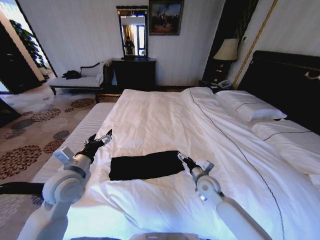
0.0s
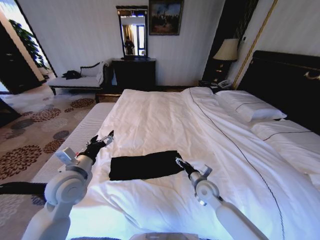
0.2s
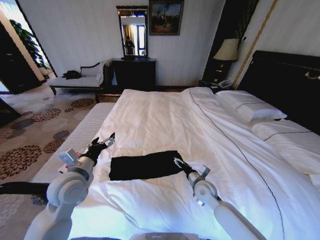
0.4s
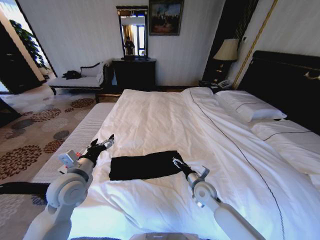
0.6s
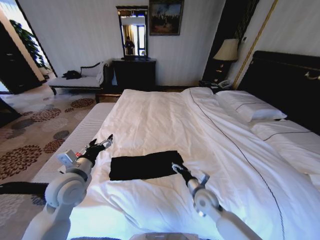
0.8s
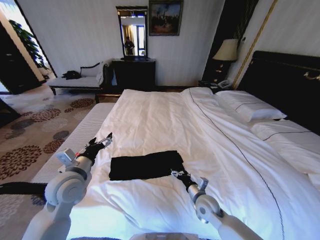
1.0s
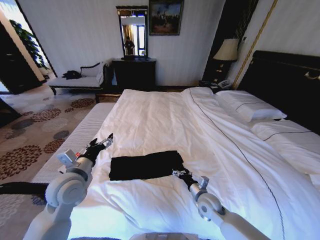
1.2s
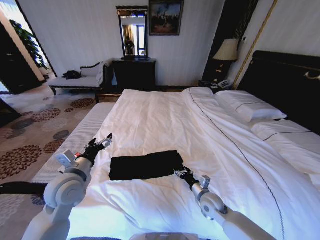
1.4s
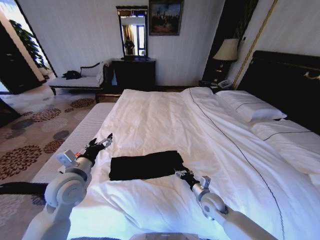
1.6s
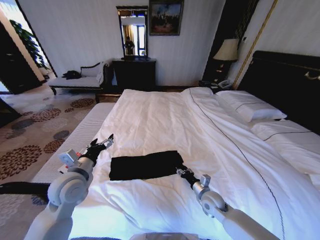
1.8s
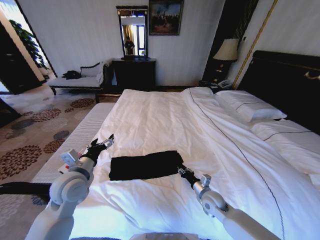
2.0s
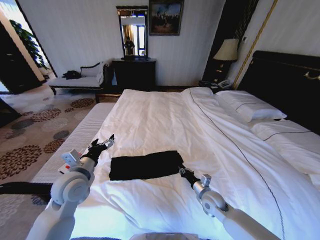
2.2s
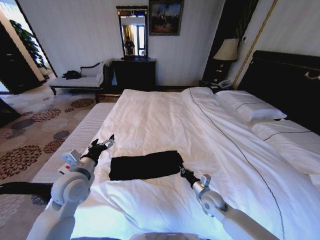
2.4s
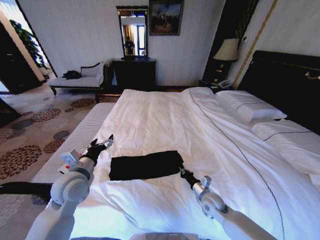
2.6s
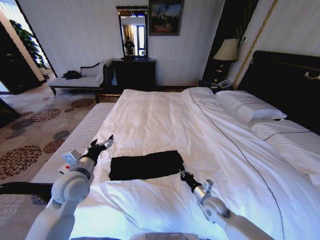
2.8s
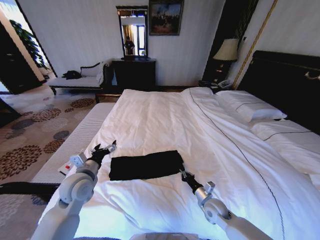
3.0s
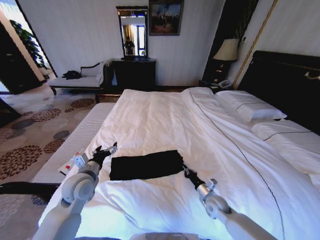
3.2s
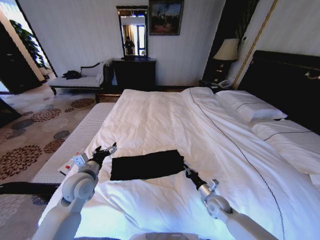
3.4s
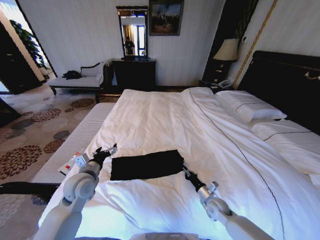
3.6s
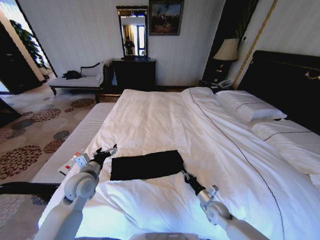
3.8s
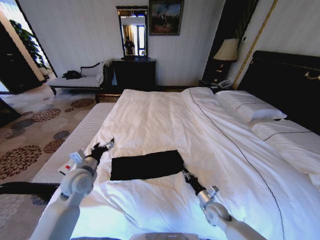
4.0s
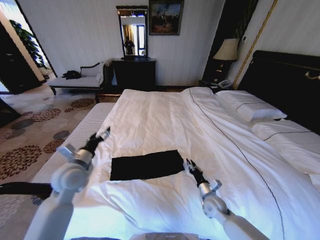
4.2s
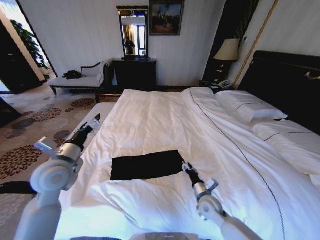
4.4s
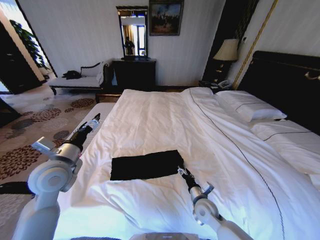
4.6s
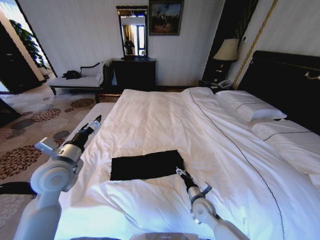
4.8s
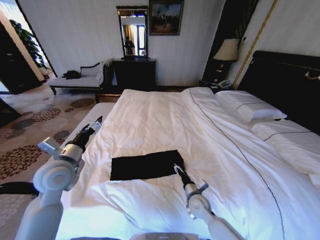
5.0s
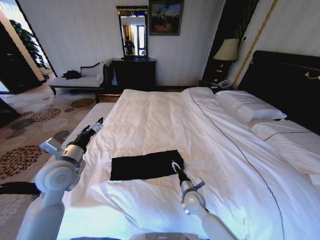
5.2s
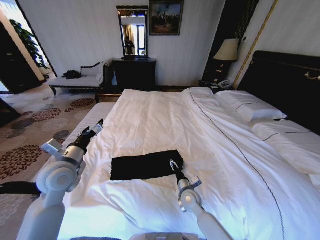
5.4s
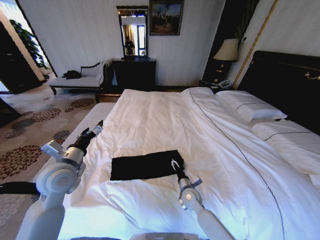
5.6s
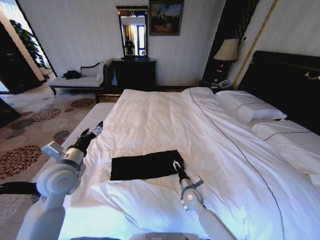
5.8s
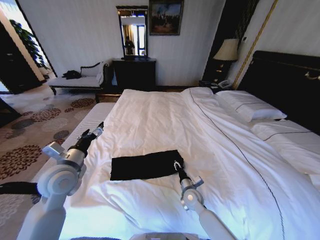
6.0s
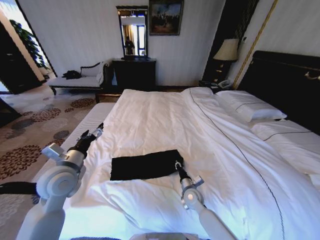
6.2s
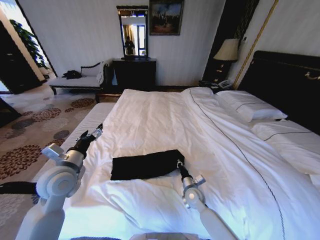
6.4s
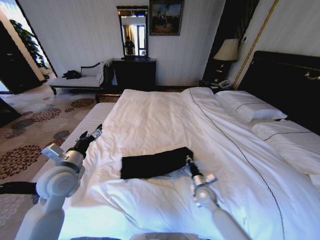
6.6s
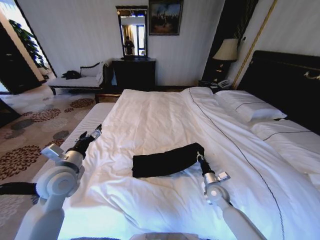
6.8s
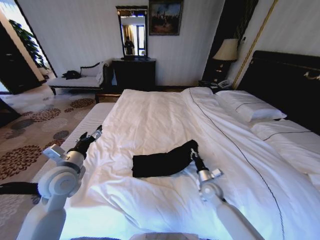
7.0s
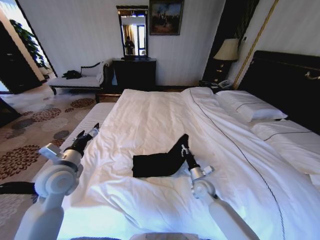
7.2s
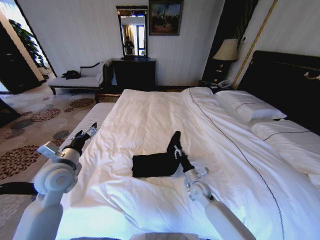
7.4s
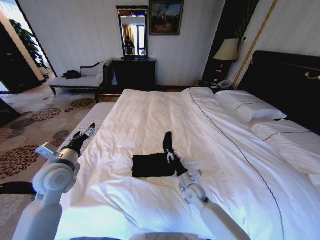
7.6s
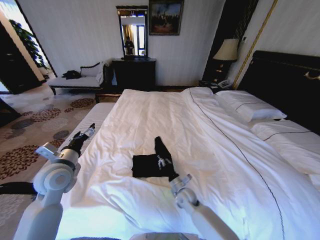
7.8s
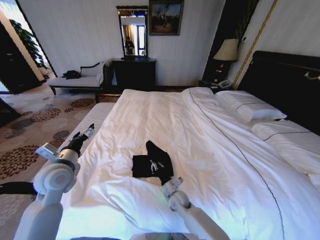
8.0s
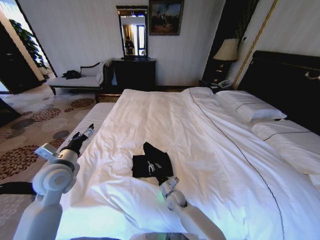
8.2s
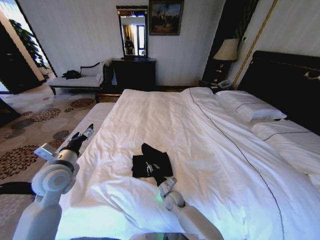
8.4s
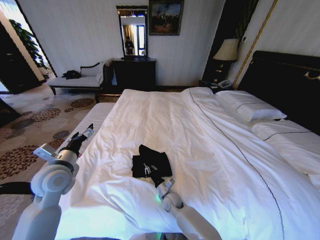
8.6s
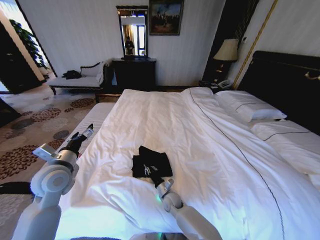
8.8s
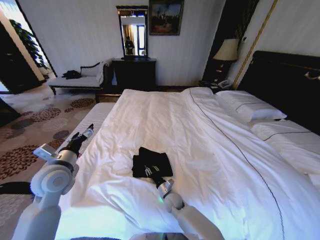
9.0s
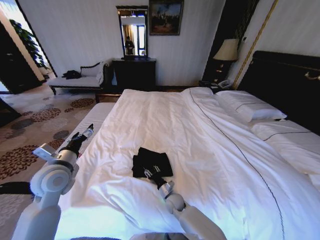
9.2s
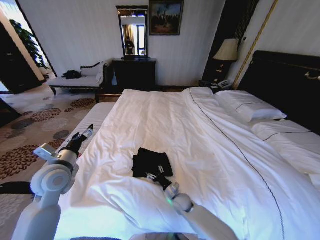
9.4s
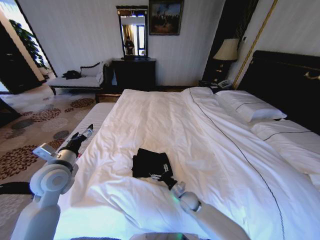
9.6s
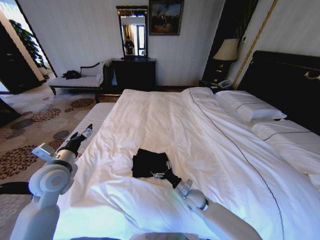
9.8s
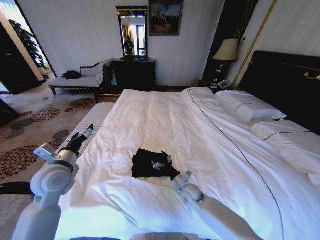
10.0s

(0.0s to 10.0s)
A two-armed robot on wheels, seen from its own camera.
Task of the whole recording: Fold the clothes on the bed.
0.0s - 1.4s: The right gripper goes about 10 cm downward and backward.
1.4s - 2.8s: The right gripper closes up.
2.8s - 4.2s: The right gripper opens up.
4.2s - 5.8s: The right gripper travels to the left by approximately 10 cm, and opens.
5.8s - 7.2s: The right gripper heads to the right, covering some 5 cm, and closes its fingers.
7.2s - 8.6s: The right gripper moves to the left and downward, about 20 cm.
8.6s - 10.0s: The right gripper travels to the right and upward by some 10 cm, and opens its fingers.

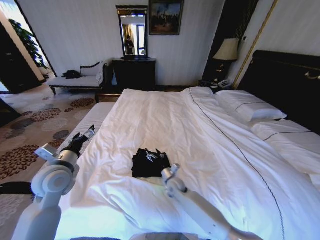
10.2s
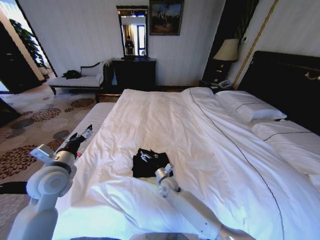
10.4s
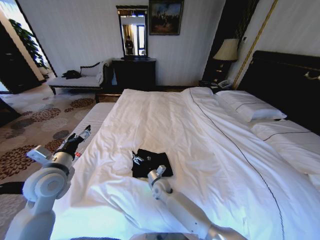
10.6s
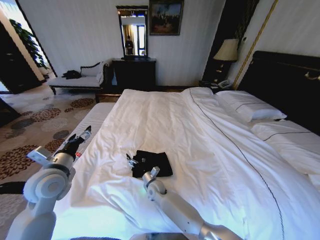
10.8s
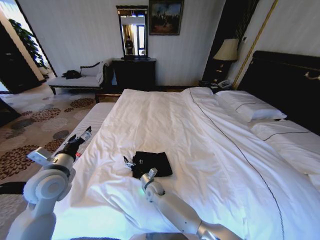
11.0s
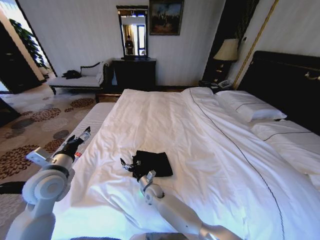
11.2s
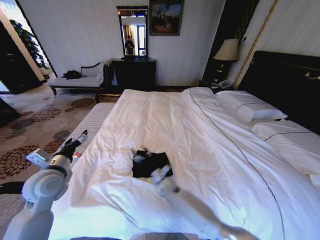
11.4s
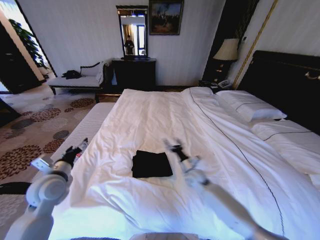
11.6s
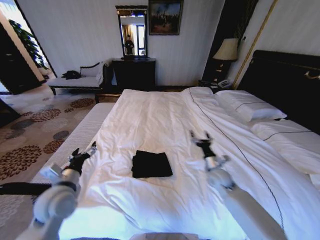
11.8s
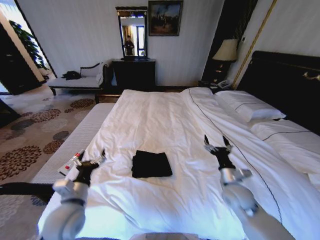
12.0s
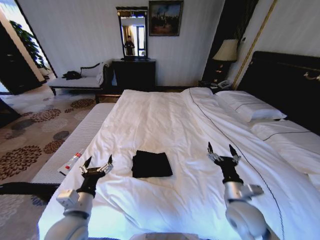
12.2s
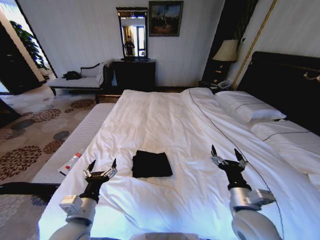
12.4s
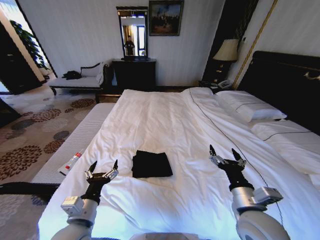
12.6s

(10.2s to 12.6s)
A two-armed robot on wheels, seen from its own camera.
Task of the whole recording: Fold the clothes on the bed.
10.2s - 11.4s: The right gripper reaches about 10 cm to the left, then returns.
11.4s - 12.6s: The right gripper shifts approximately 35 cm upward, backward and to the right; the left gripper goes about 20 cm backward and to the right.

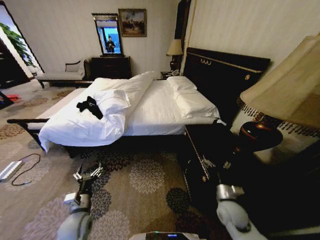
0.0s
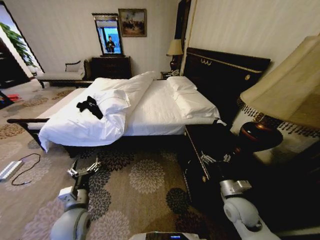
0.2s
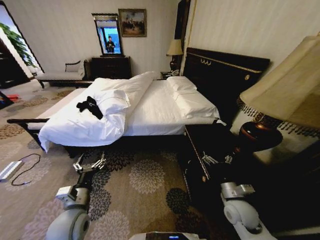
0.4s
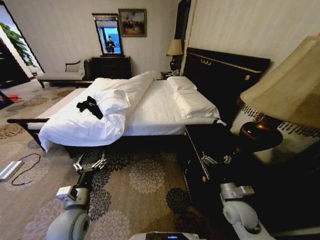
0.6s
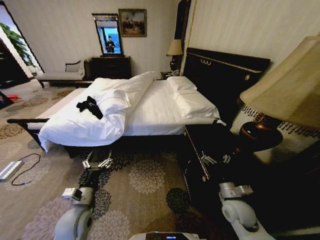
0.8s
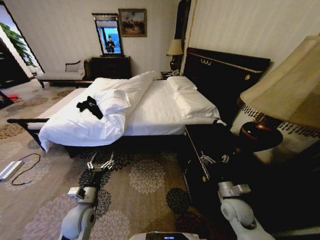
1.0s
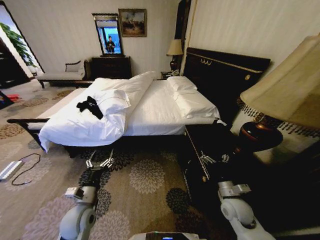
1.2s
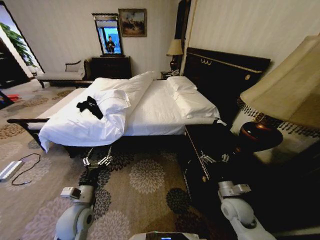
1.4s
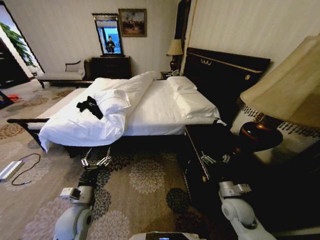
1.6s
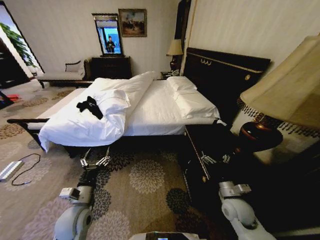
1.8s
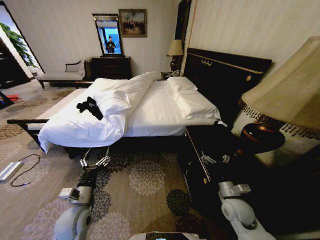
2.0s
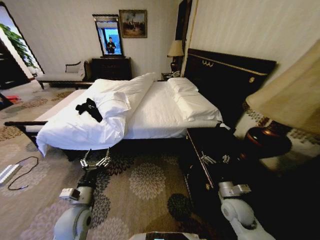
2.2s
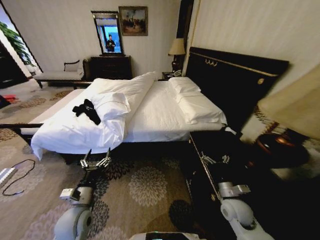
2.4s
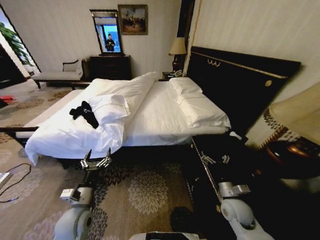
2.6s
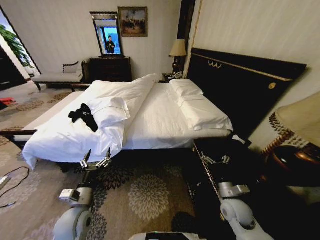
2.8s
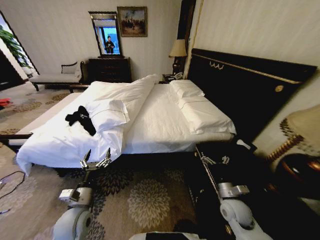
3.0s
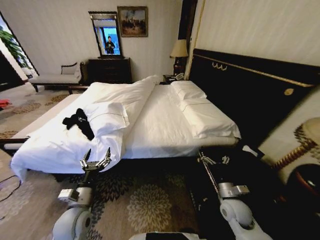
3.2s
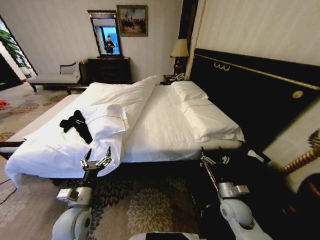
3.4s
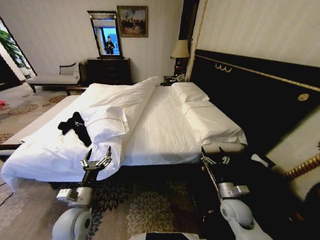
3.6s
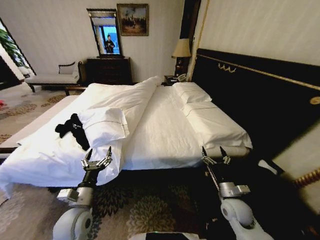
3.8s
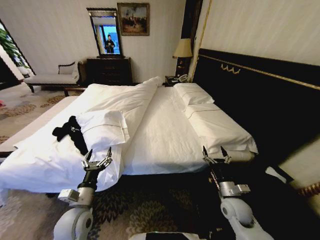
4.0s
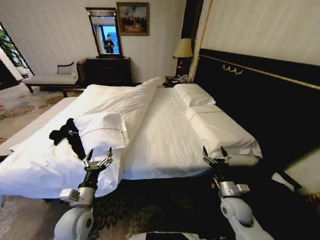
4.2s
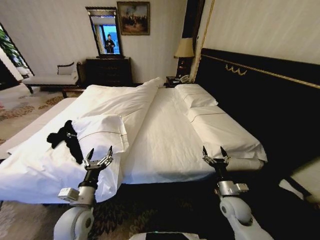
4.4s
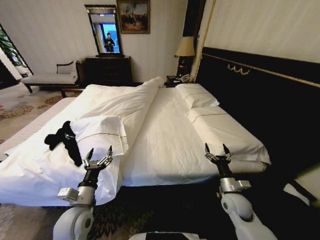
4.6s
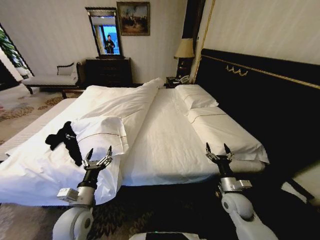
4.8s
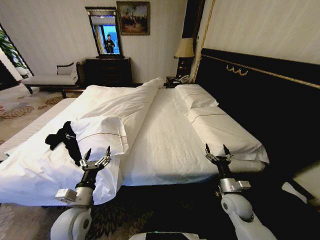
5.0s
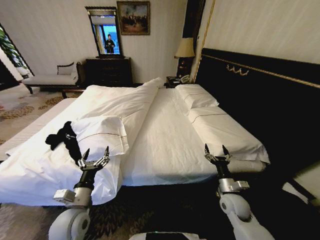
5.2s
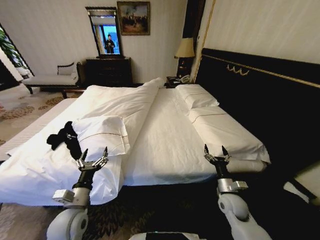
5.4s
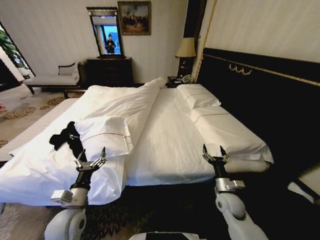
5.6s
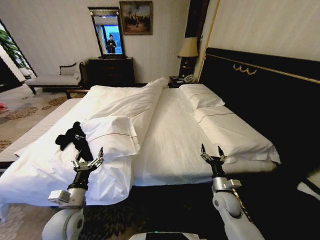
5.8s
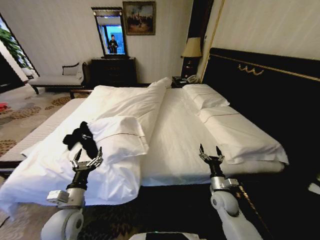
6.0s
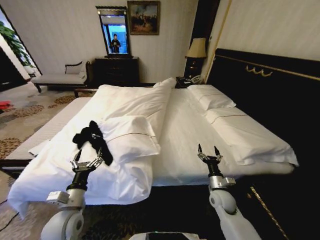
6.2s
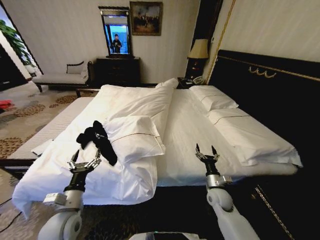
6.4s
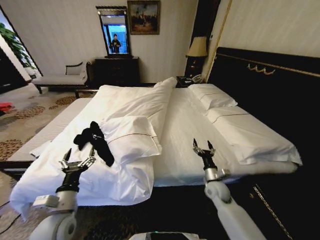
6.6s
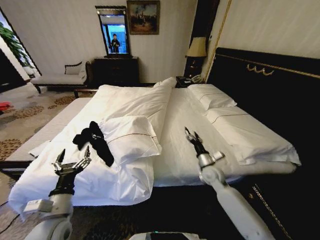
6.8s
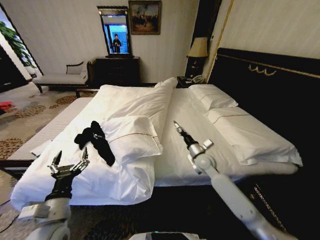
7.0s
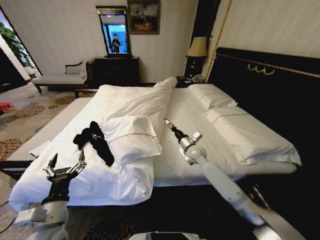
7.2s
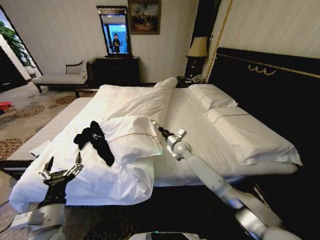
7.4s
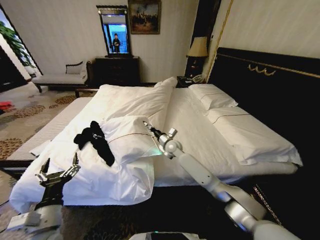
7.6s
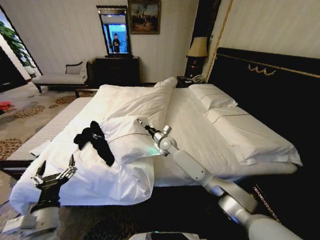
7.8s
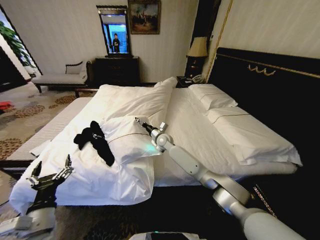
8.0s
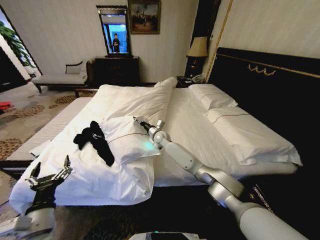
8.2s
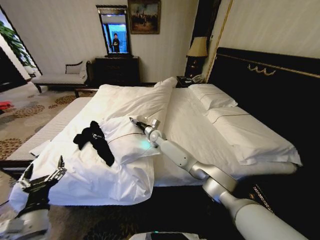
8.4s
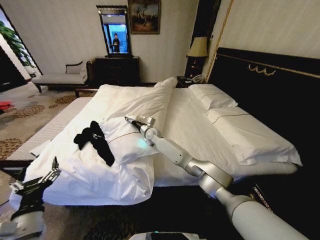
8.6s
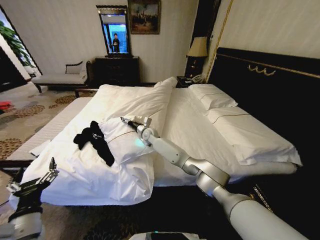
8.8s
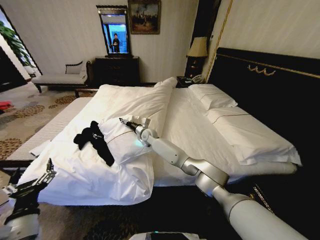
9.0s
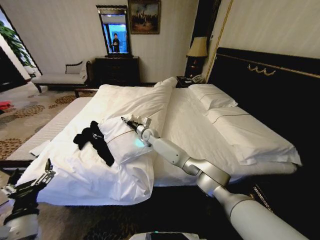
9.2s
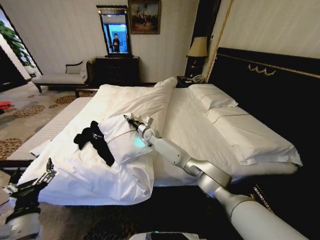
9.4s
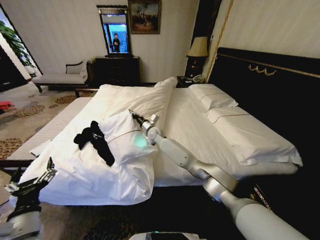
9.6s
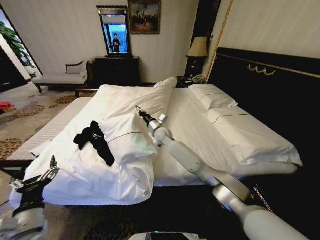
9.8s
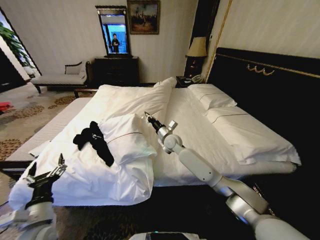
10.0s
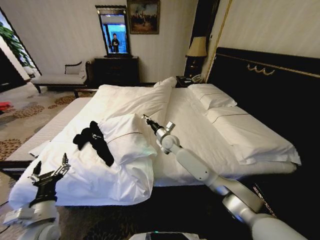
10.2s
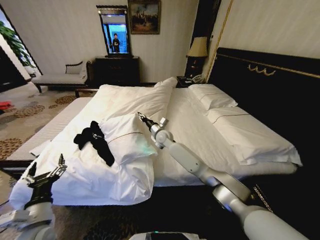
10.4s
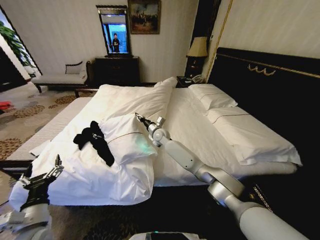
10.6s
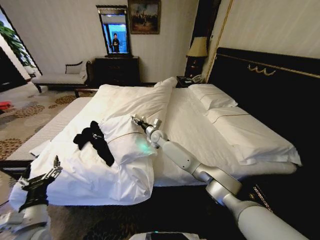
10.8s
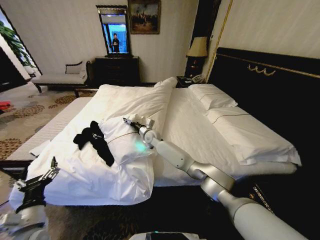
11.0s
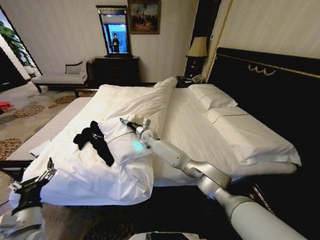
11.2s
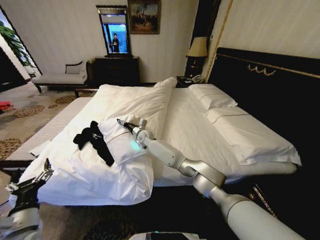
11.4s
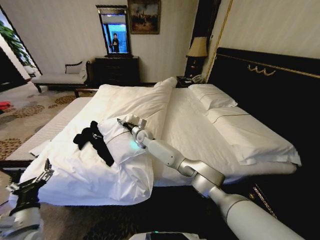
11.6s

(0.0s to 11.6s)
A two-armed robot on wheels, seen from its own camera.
Task of the whole recording: Fold the clothes on the bed.
5.8s - 7.2s: The right gripper moves forward, to the left and upward, approximately 25 cm; the left gripper travels backward by roughly 5 cm.
7.2s - 8.8s: The left gripper is displaced to the left by approximately 5 cm; the right gripper heads to the left and forward, covering approximately 25 cm.
8.8s - 10.2s: The right gripper is displaced to the right and backward by some 15 cm, and closes up.
10.2s - 11.6s: The right gripper moves to the left, about 15 cm, and opens.
